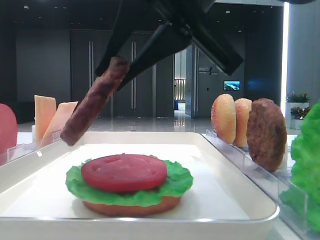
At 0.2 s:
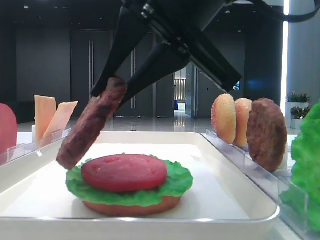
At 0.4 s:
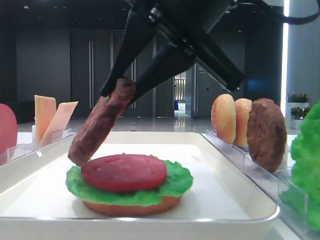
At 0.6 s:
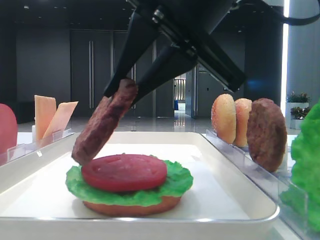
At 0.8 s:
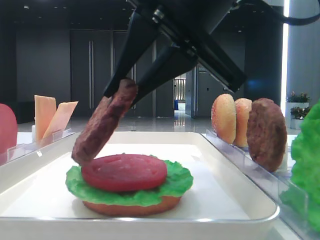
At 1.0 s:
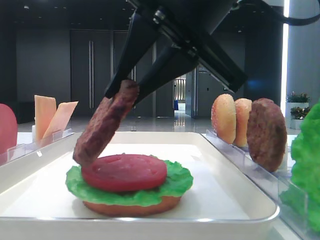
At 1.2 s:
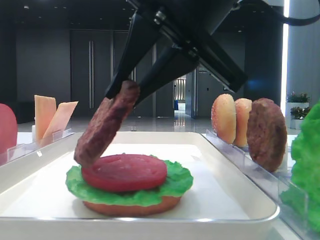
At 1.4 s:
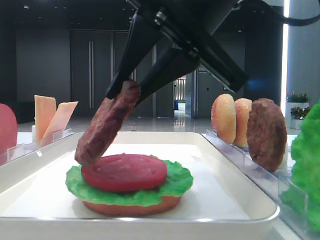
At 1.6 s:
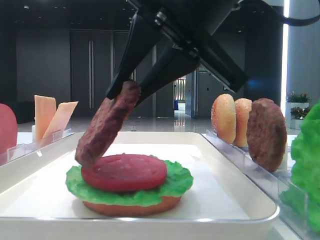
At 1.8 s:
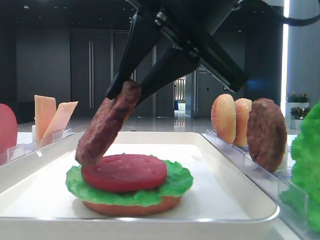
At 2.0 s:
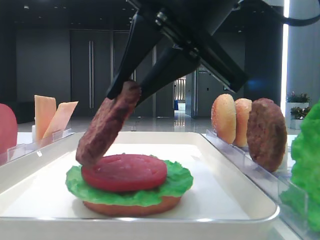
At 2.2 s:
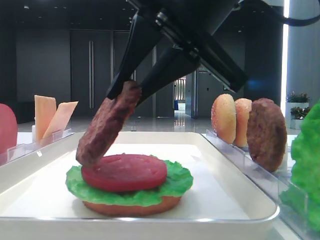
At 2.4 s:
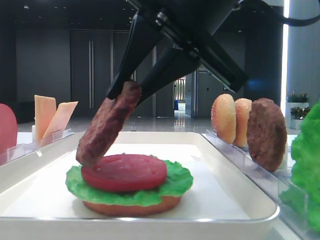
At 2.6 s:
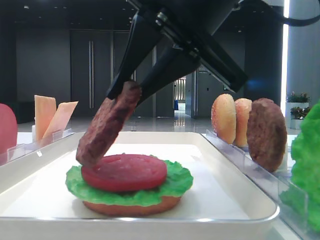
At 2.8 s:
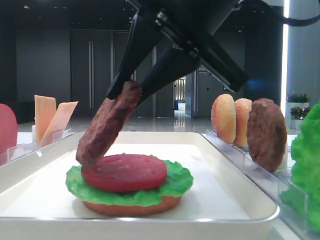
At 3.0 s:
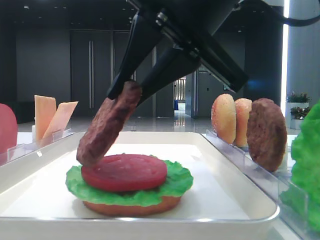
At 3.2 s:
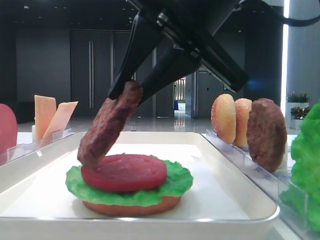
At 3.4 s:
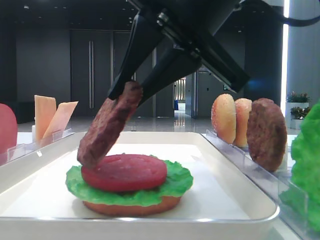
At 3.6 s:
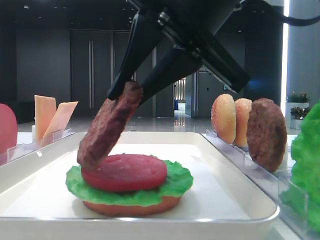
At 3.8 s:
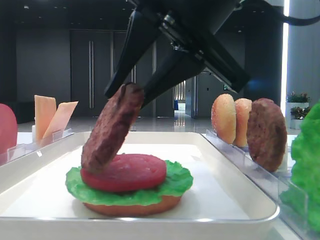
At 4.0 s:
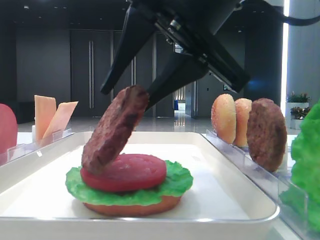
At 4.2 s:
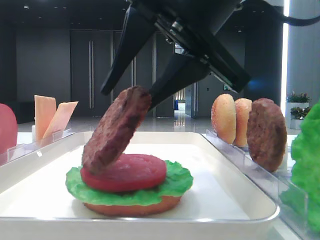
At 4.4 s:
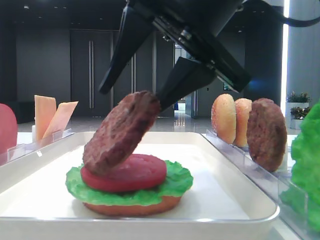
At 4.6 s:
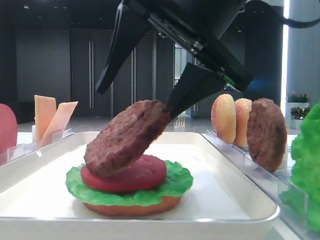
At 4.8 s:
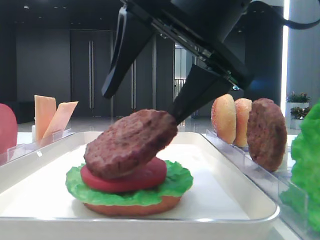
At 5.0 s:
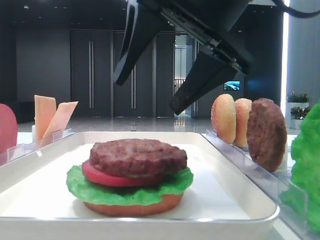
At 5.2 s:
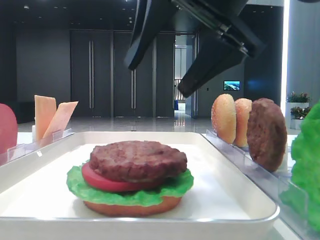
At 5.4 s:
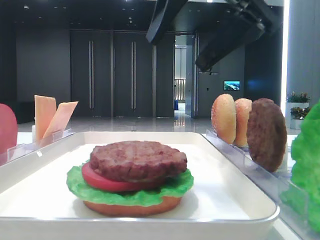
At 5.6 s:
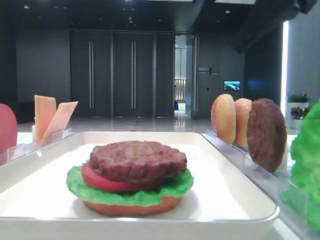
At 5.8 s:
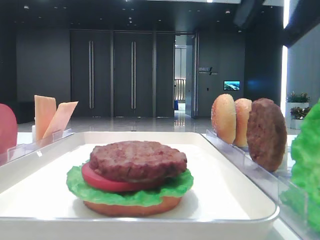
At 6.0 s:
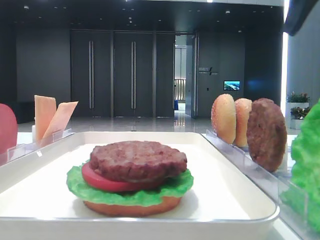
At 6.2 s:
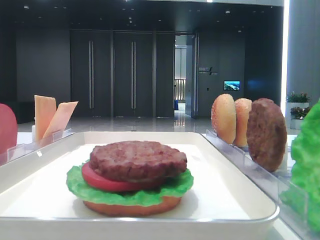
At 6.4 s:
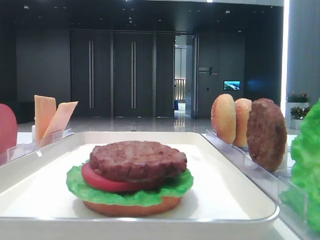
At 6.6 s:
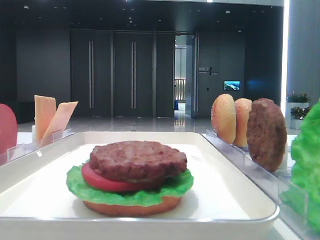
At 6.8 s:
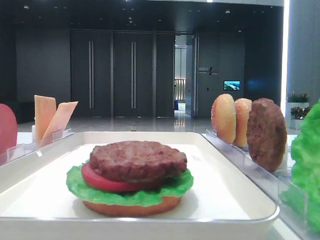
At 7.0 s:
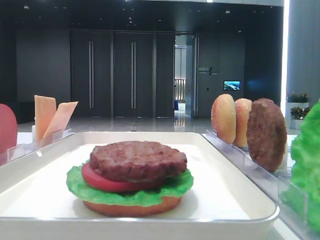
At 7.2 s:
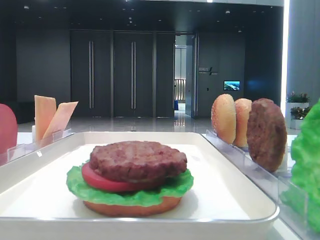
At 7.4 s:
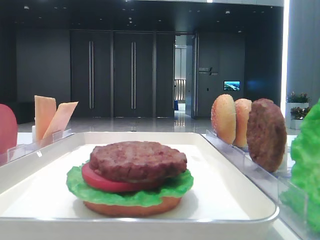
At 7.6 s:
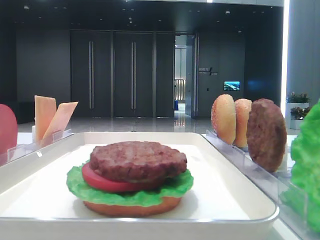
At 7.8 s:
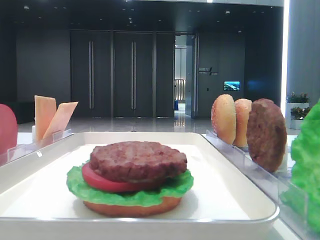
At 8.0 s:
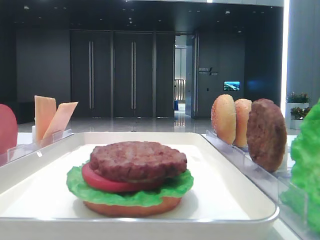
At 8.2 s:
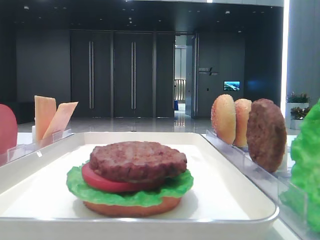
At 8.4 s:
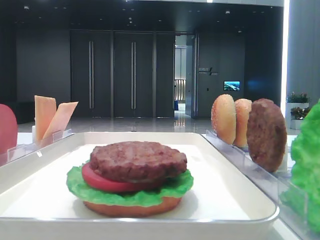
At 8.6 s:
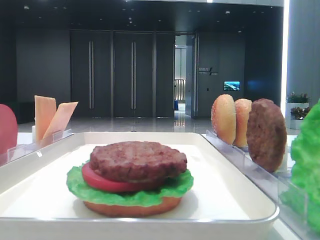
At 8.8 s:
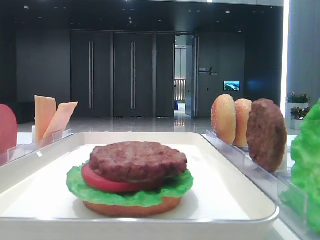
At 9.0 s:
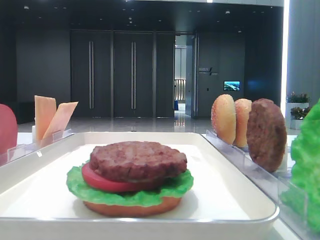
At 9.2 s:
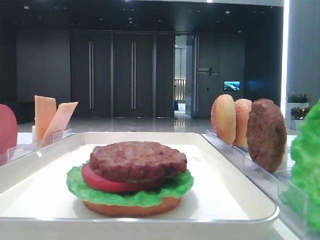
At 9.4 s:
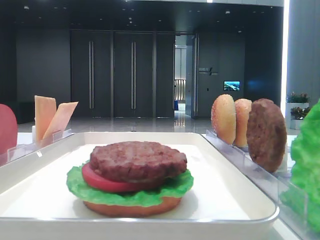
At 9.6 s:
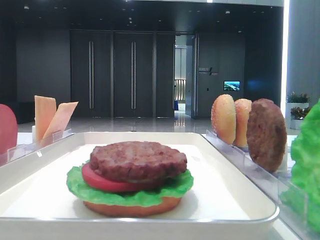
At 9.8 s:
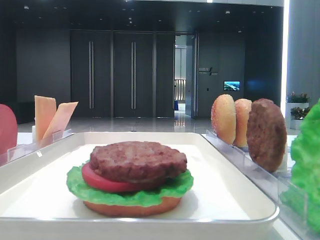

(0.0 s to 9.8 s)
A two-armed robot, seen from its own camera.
Step, 0.0 s - 4.8 s: Place the patty on the tomato slice with the right hand.
0.0 s - 1.4 s: The grippers stay close to where they were, moving slightly.
1.4 s - 4.2 s: Neither gripper changes place.
4.2 s - 5.6 s: The right gripper shifts about 10 cm to the right and upward, and opens up.
5.6 s - 7.0 s: The right gripper is displaced to the right by about 20 cm.
8.4 s - 9.8 s: Neither gripper changes place.

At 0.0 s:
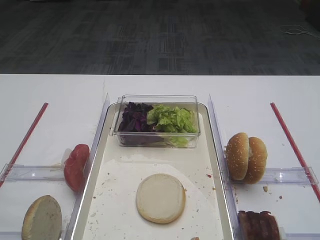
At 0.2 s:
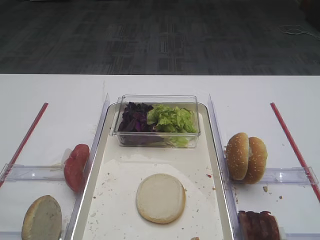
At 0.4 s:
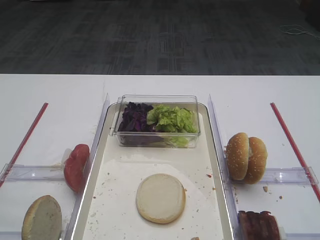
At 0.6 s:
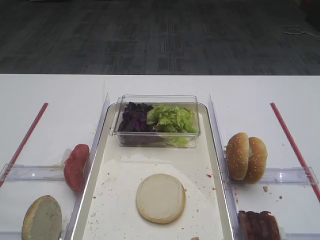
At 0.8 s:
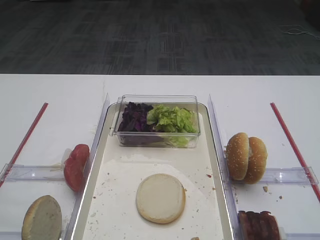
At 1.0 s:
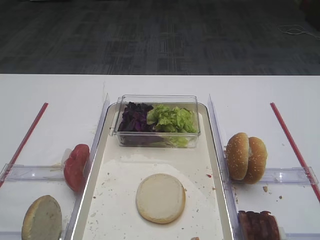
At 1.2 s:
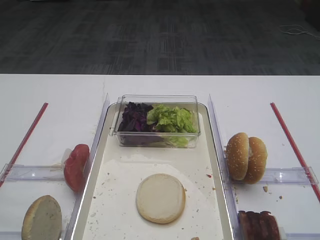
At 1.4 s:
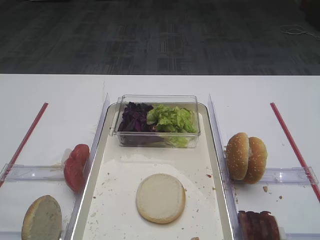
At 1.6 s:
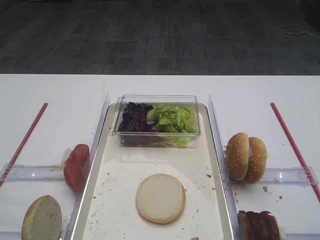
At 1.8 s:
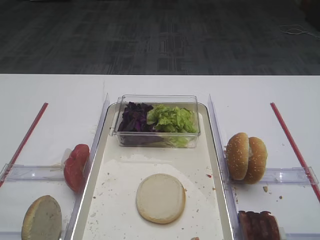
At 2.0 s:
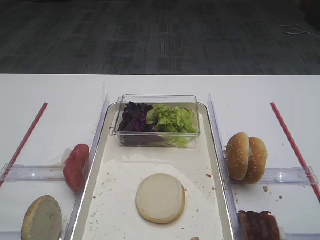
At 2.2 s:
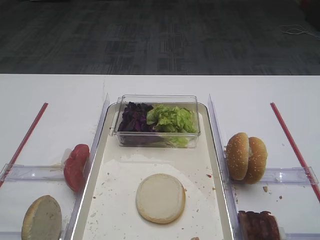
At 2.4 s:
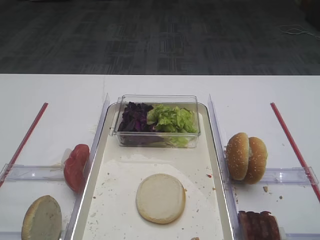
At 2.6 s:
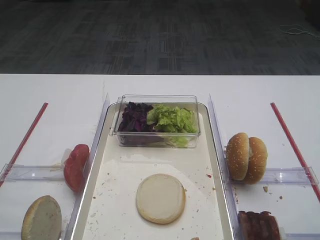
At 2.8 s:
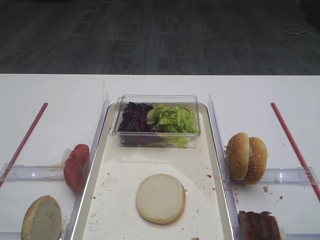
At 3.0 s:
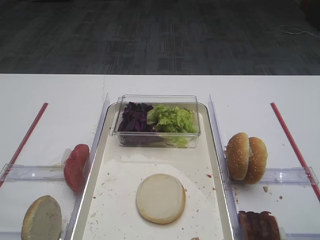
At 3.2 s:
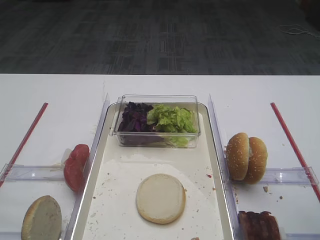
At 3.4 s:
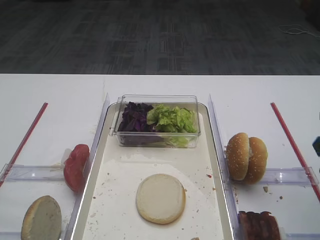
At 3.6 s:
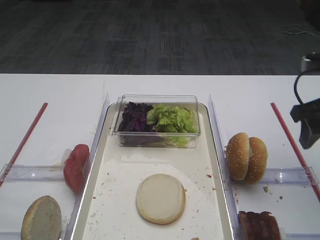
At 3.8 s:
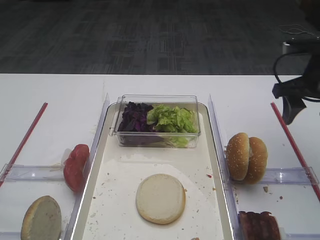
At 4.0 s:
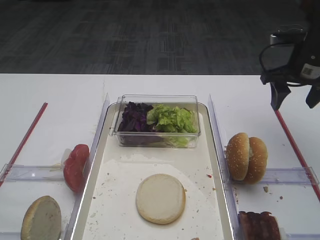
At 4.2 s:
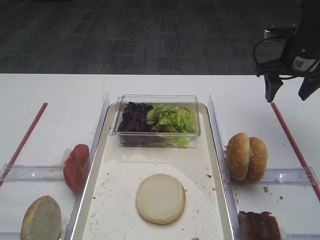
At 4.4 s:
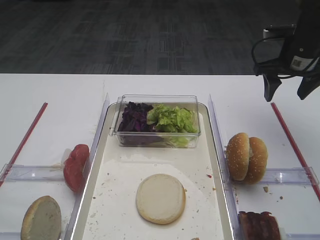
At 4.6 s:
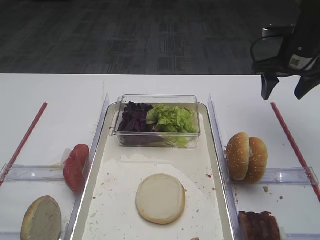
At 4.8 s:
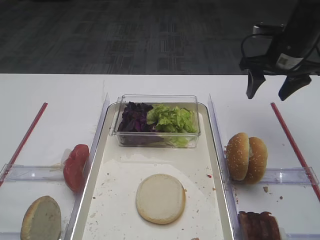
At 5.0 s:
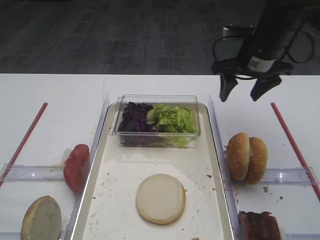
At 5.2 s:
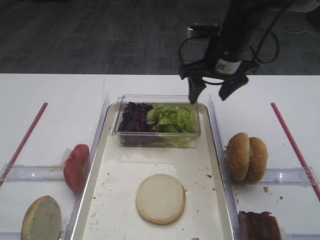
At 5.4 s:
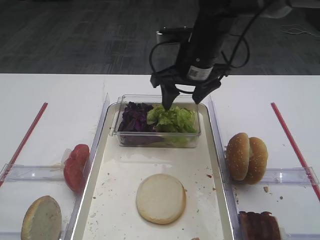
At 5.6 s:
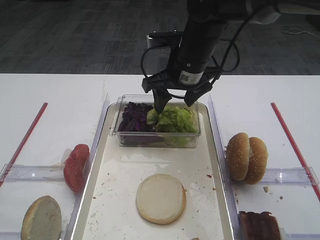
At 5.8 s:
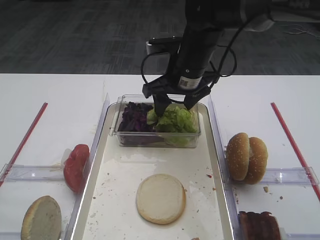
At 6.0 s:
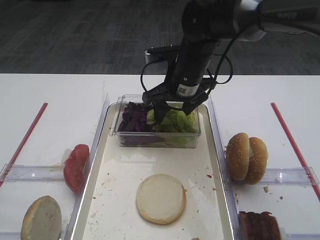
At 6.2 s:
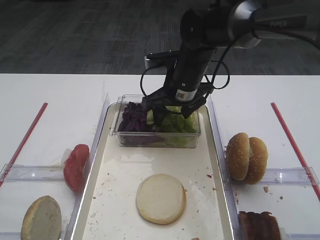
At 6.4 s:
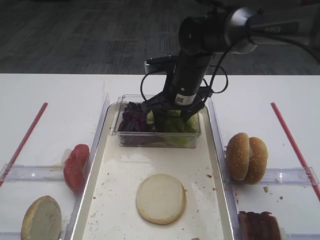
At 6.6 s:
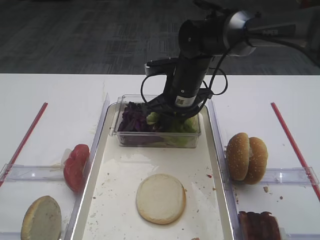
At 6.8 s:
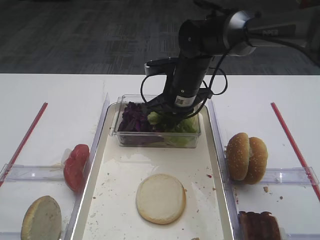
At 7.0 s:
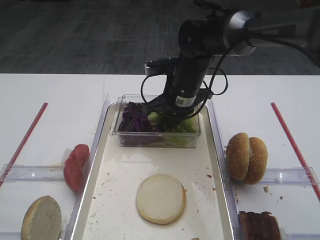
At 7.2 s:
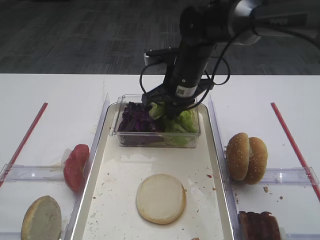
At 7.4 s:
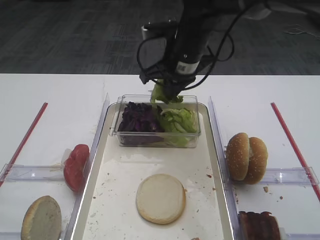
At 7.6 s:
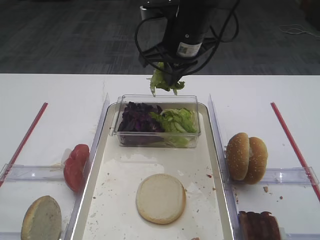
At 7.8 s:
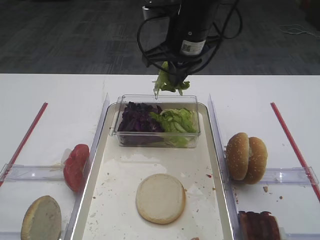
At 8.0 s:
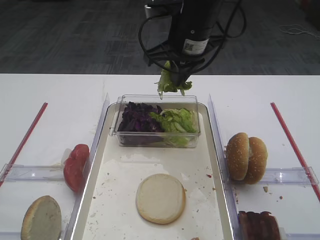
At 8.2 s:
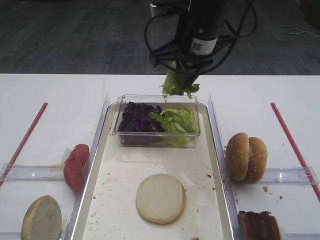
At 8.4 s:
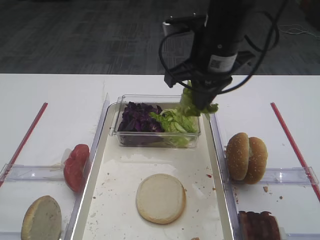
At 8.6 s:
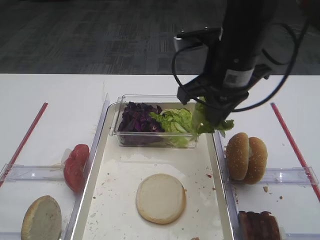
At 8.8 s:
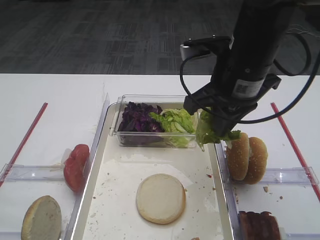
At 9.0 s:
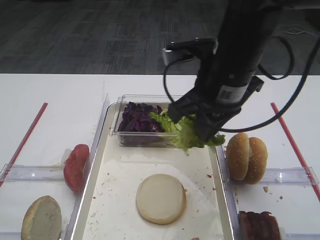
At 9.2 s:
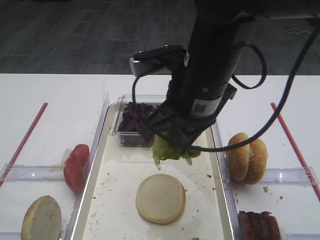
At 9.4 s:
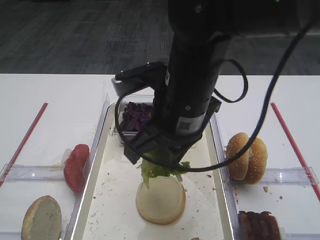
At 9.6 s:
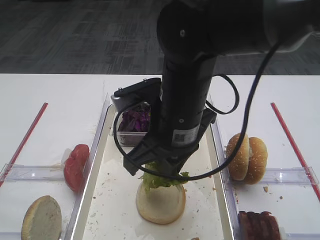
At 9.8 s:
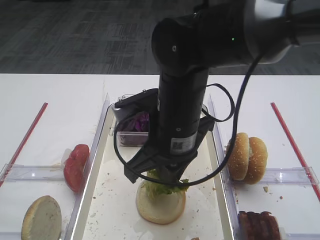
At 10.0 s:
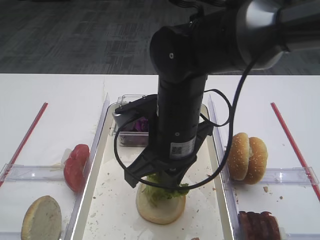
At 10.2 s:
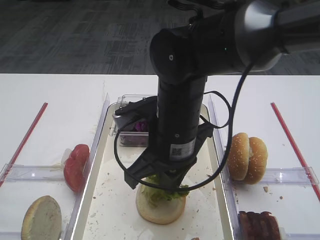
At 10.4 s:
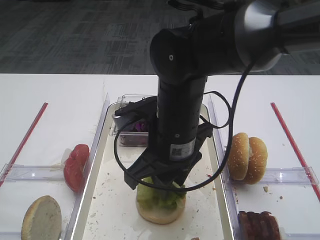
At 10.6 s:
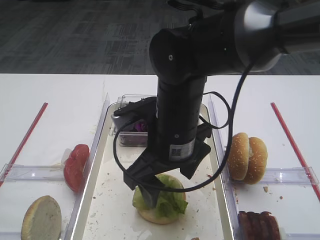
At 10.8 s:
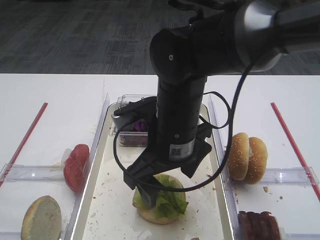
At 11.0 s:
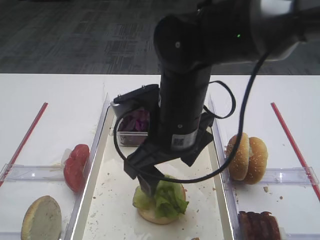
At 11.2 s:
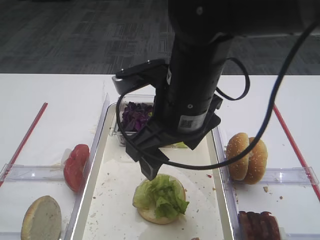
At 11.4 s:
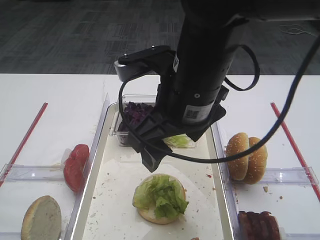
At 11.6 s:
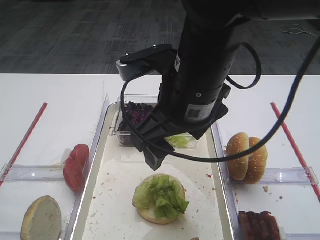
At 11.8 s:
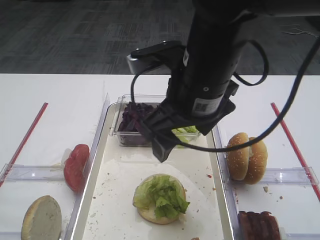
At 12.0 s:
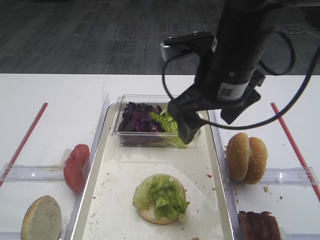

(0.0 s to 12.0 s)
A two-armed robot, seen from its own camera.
Step, 0.0 s - 7.4 s: Pick up the lettuce leaf with the right gripper.
Step, 7.6 s - 11.0 s: Place the lettuce leaf on the bread slice with the right gripper.
3.0 s - 4.4 s: The right gripper heads forward, covering approximately 30 cm.
4.4 s - 6.0 s: The right gripper is displaced to the left by about 20 cm.
6.0 s - 7.6 s: The right gripper travels upward by some 5 cm, and closes.
7.6 s - 9.0 s: The right gripper goes about 10 cm backward.
9.0 s - 10.4 s: The right gripper is displaced to the left and downward by about 10 cm, and opens.
10.4 s - 12.0 s: The right gripper travels upward and to the right by approximately 10 cm, and opens up.
